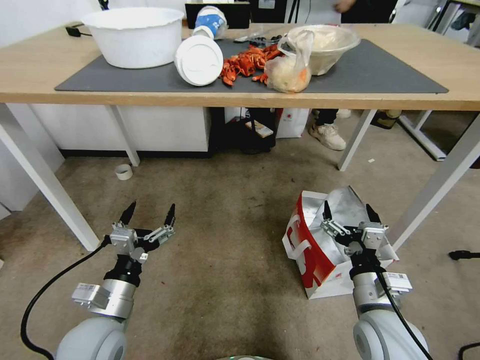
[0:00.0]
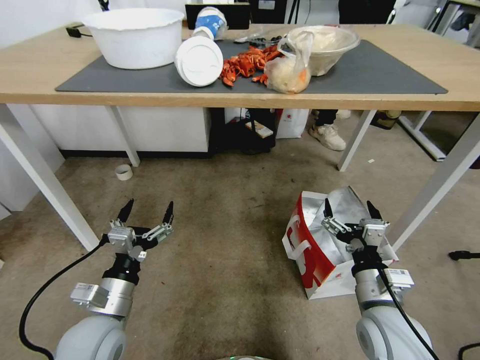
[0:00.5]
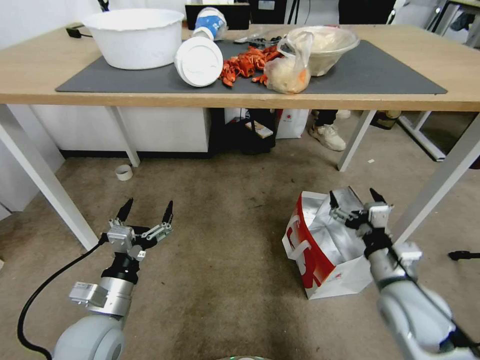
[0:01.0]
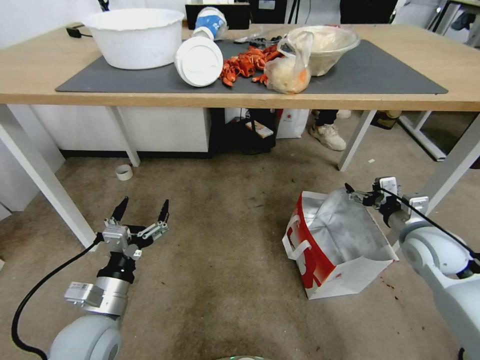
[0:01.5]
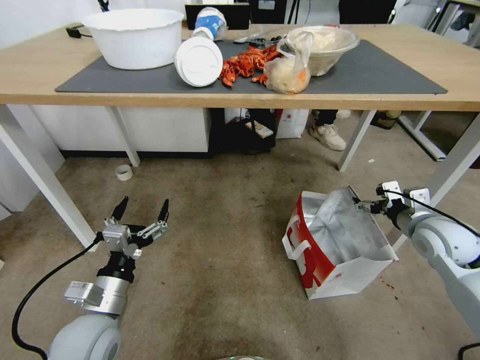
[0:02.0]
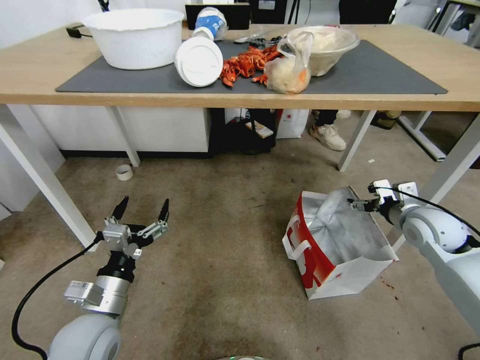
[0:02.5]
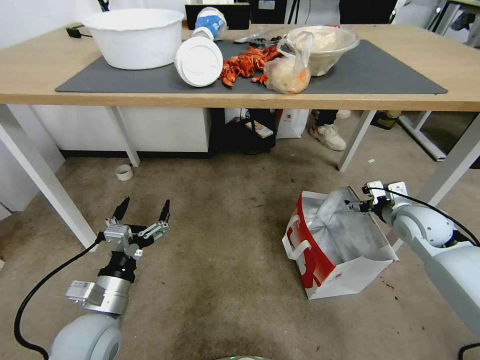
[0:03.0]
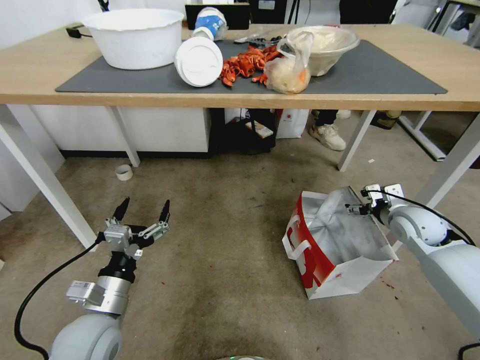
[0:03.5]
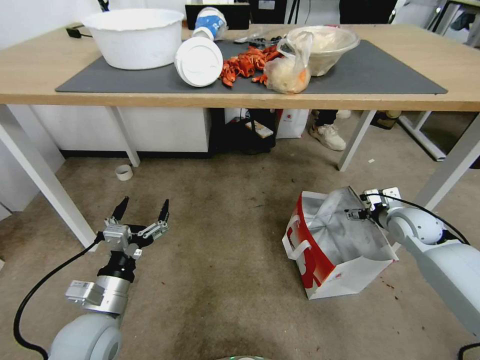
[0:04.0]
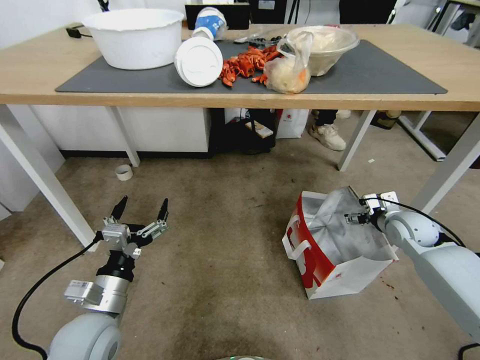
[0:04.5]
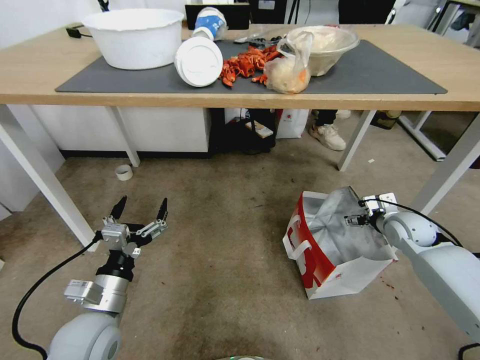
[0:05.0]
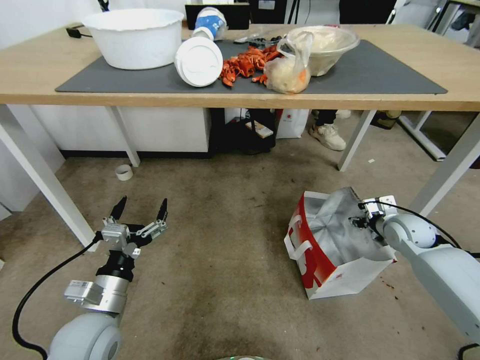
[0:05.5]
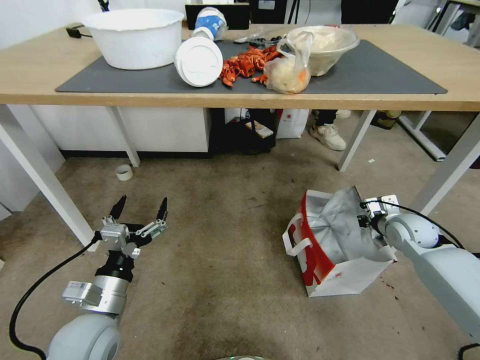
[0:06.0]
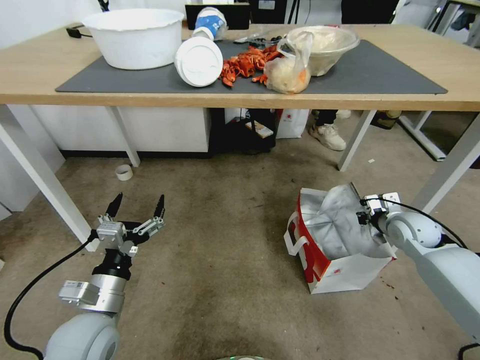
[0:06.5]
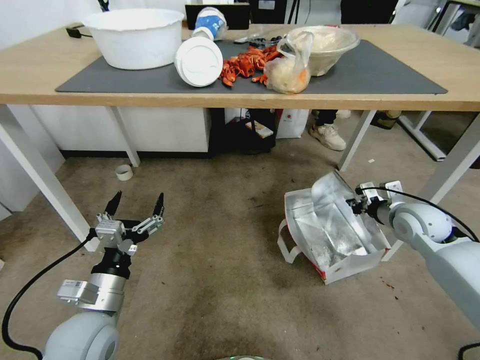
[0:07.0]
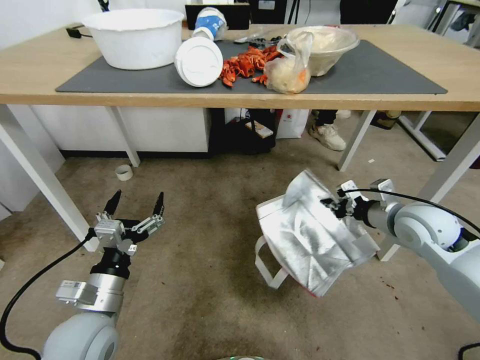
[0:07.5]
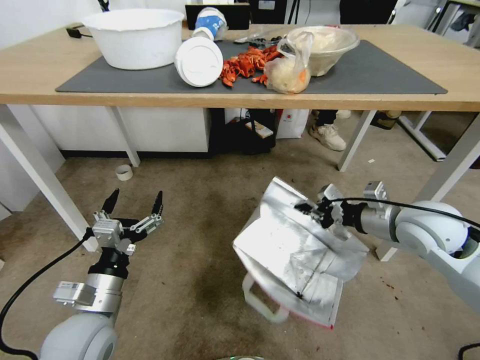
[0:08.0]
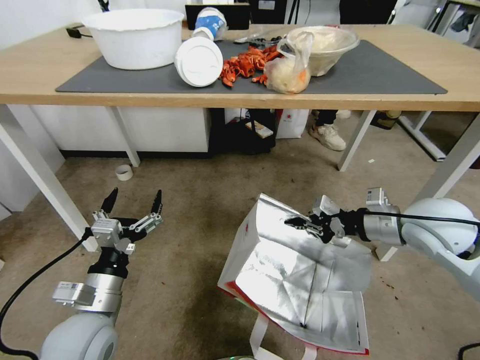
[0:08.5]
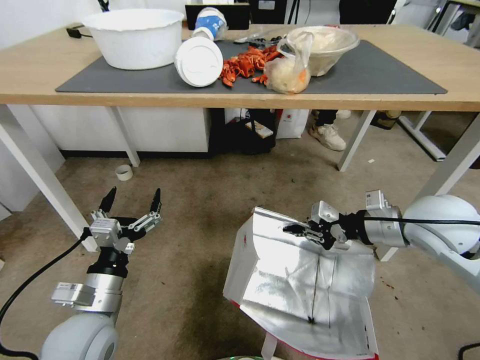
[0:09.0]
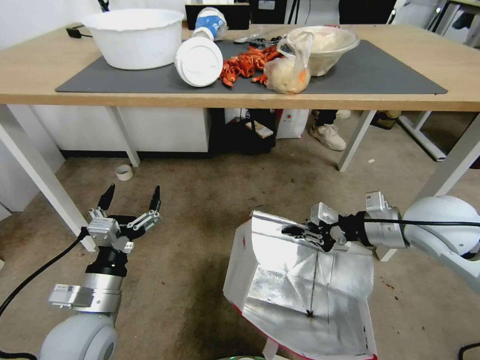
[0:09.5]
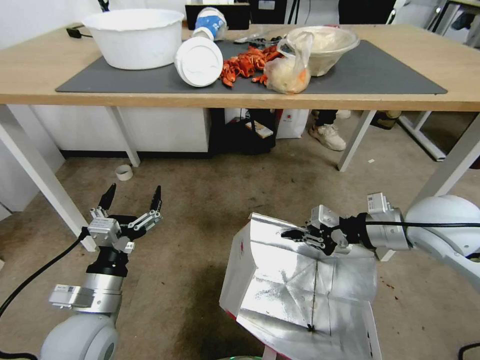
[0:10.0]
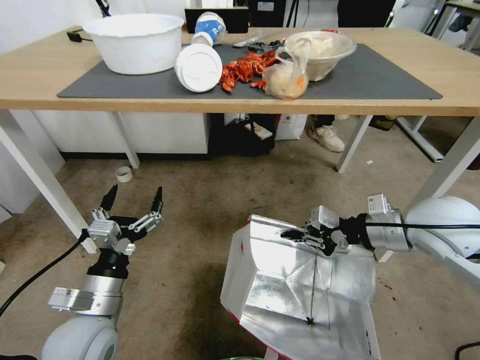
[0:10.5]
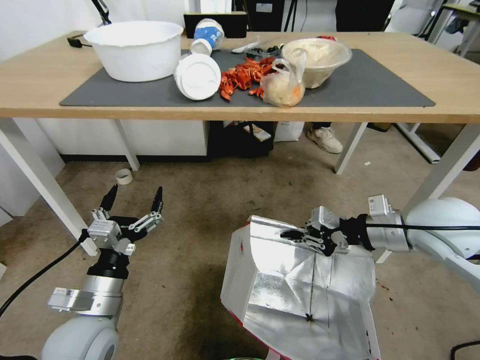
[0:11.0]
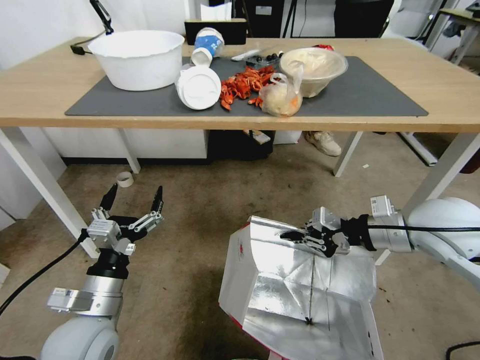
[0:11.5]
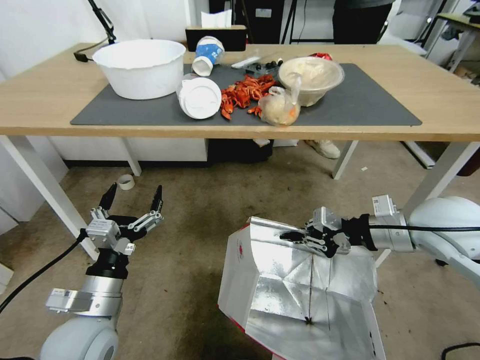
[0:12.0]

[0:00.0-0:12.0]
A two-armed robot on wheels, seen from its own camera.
Task of the whole recording: Pick up the food delivery bag from the floor and place it on the table.
0:00.0 to 0:02.0: The right gripper goes about 20 cm to the right and forward.
0:02.0 to 0:04.0: The right gripper heads forward and downward, covering roughly 10 cm.
0:04.0 to 0:06.0: The right gripper closes its fingers.
0:06.0 to 0:08.0: The right gripper travels upward, to the left and backward by roughly 20 cm.

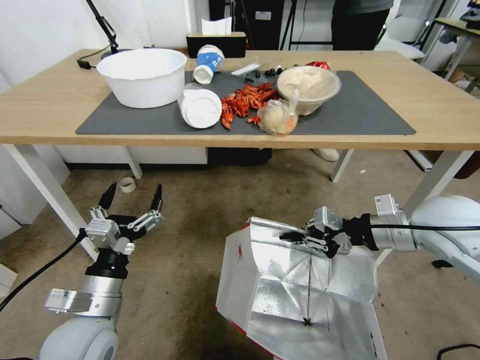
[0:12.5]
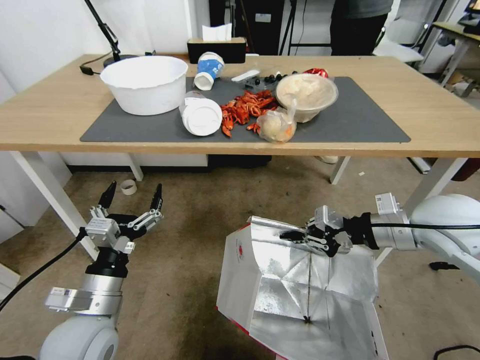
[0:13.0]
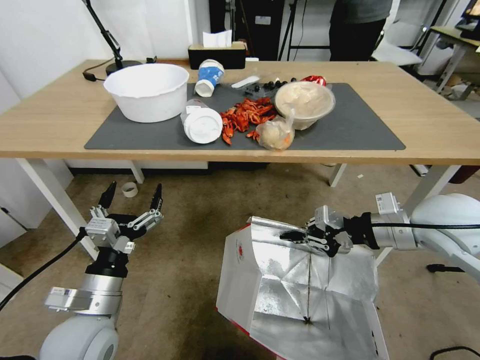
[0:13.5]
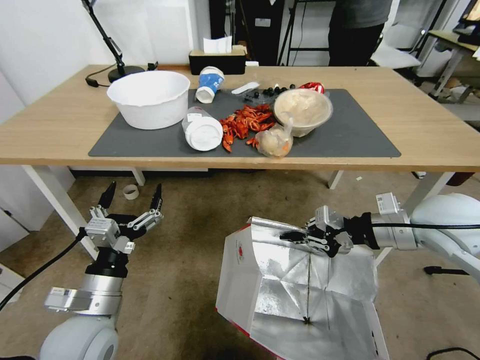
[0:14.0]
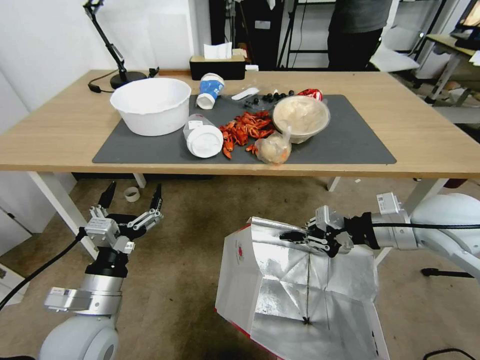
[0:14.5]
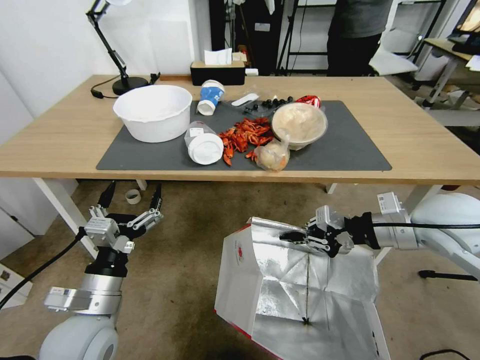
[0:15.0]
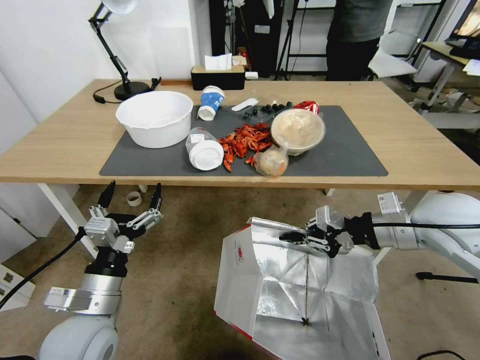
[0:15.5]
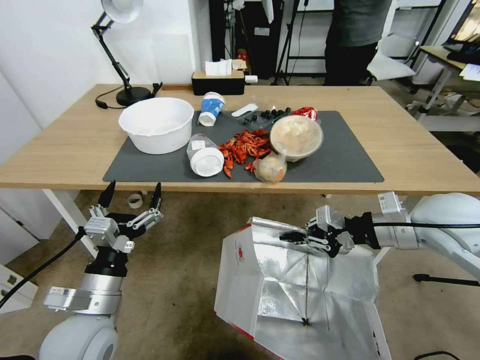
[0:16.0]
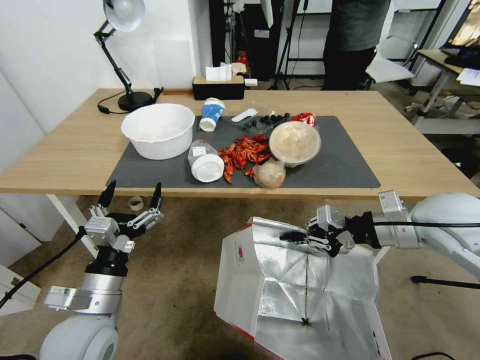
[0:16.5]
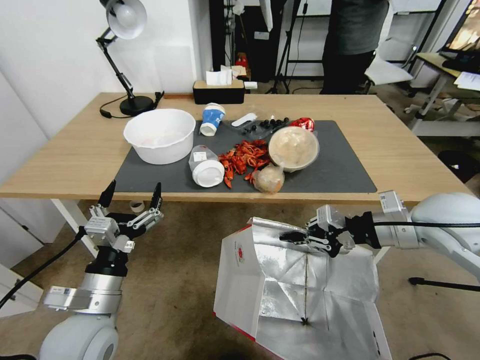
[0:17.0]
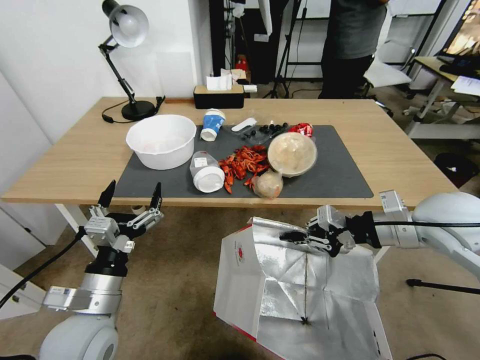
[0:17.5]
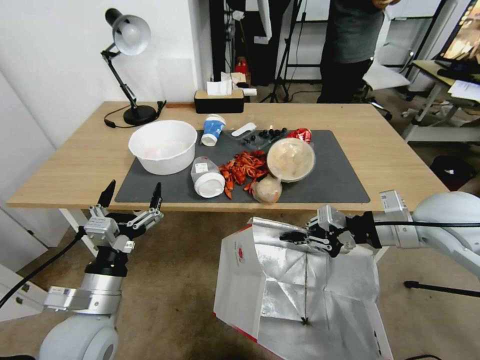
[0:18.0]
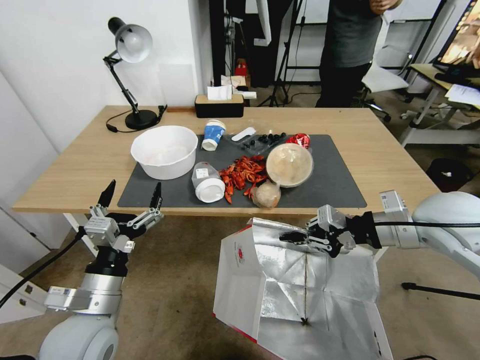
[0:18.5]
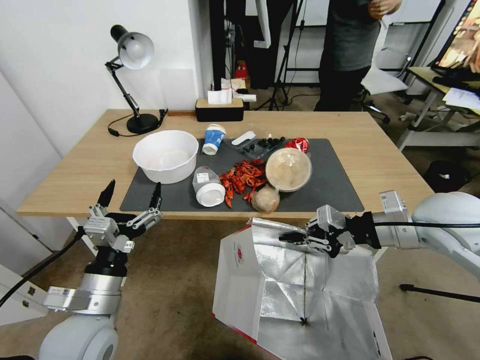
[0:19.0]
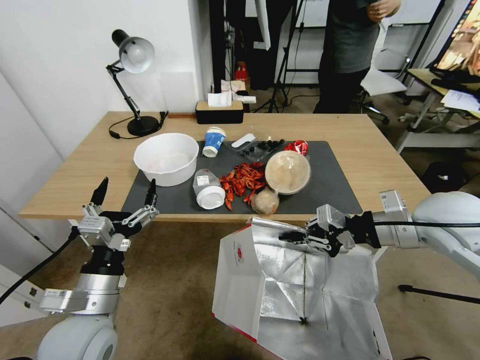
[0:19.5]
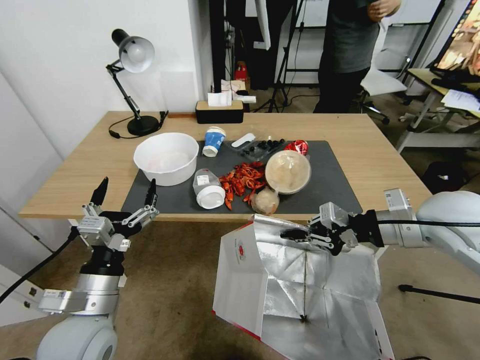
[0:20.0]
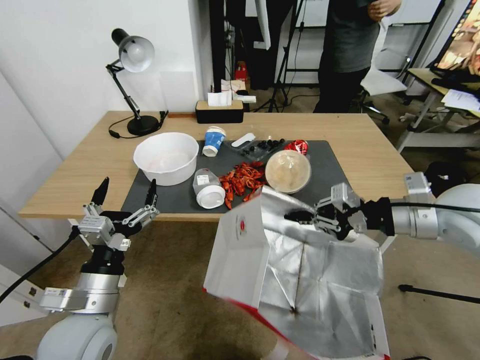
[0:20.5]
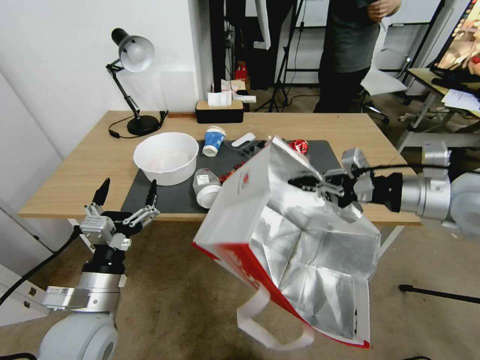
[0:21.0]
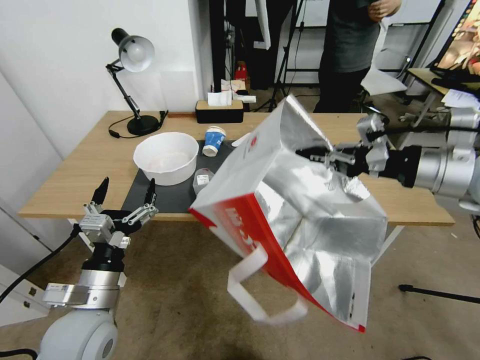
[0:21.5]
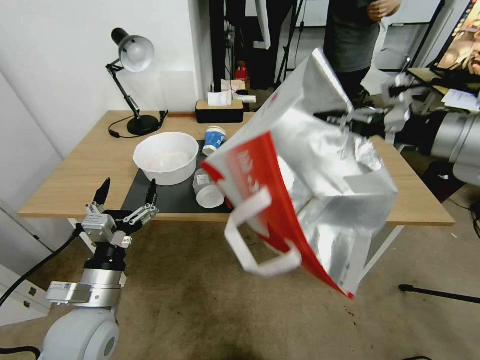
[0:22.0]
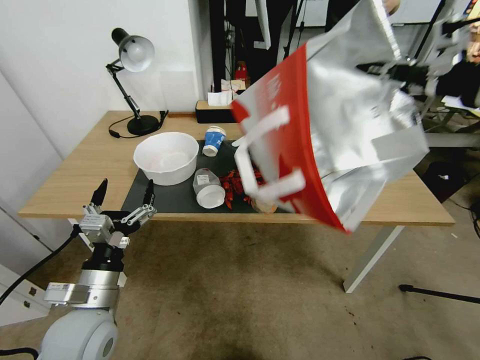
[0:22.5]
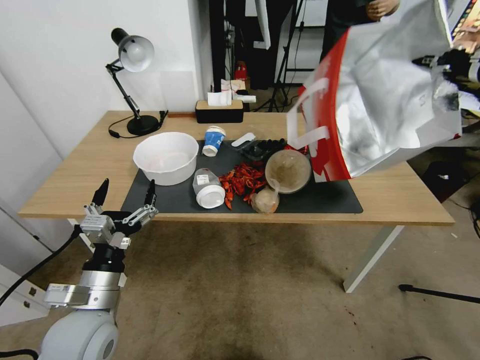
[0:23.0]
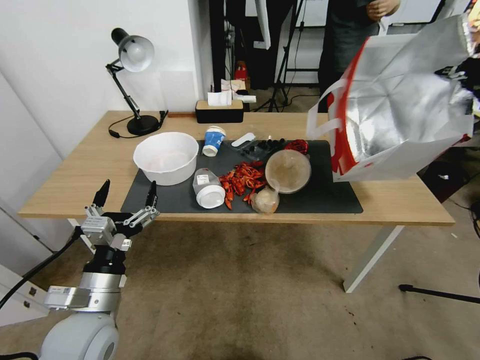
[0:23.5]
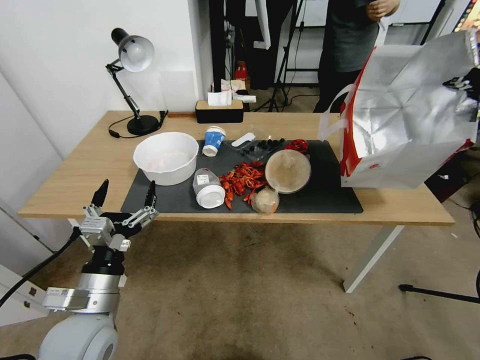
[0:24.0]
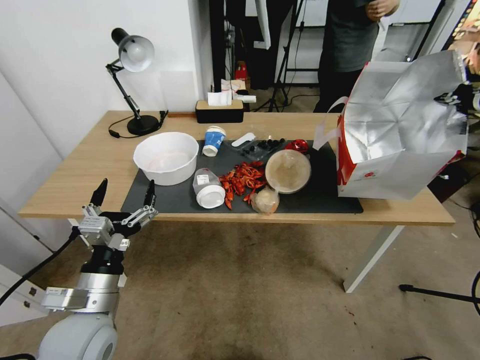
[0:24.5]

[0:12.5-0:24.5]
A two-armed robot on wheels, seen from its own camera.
Task of the whole recording: Pick up the food delivery bag from the floor and place it on the table.
0:20.5 to 0:22.5: The right gripper is displaced upward by some 20 cm.
0:22.5 to 0:24.5: The right gripper shifts some 10 cm to the right and forward.

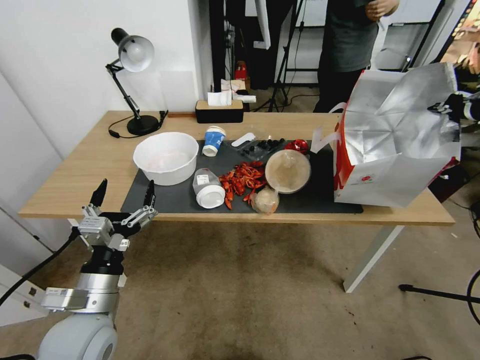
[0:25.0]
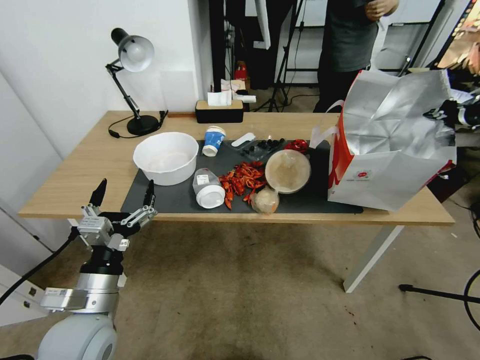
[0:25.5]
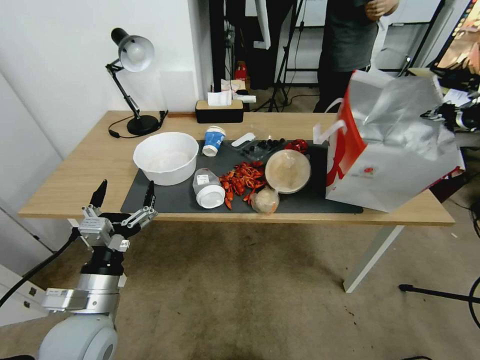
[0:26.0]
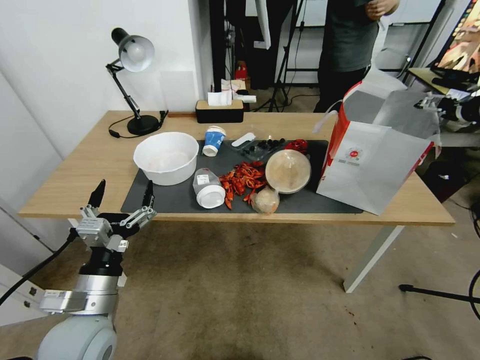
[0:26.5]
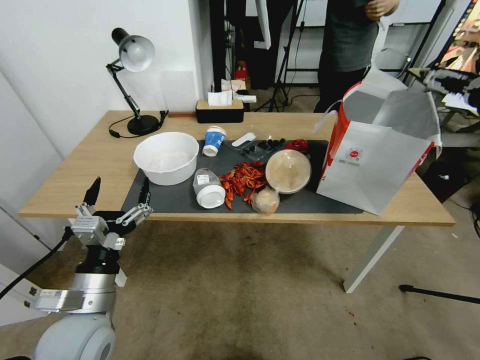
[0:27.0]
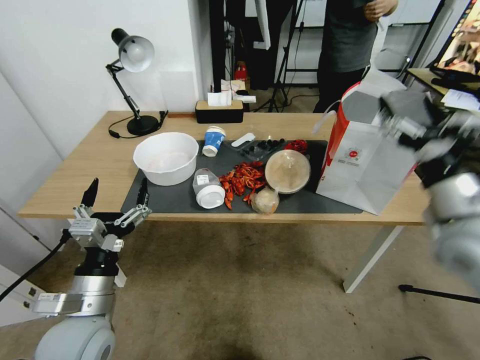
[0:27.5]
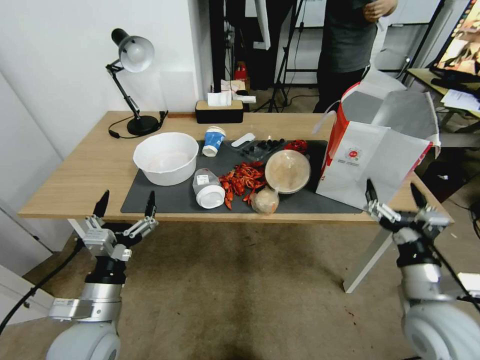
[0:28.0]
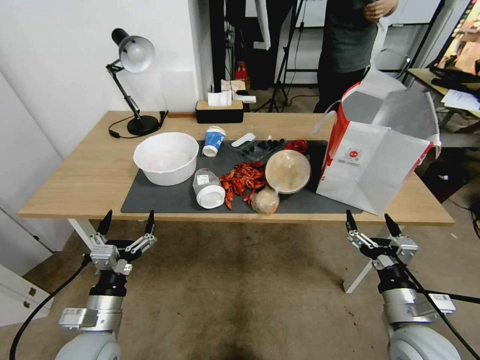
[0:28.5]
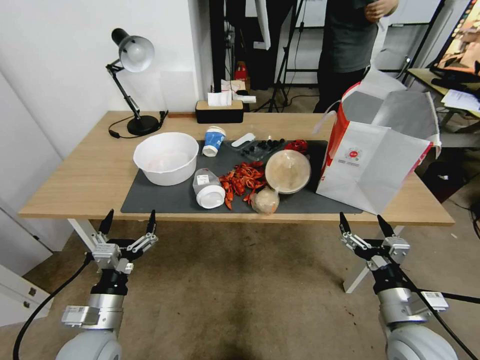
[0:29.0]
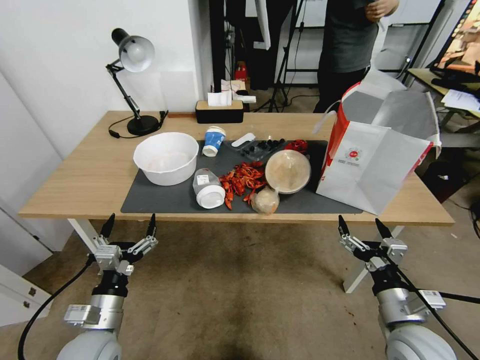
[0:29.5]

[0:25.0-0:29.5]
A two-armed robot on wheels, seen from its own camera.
Task of the whole recording: Pick up the food delivery bag from the floor and place it on the table.
0:25.0 to 0:27.0: The right gripper opens its fingers.
0:27.0 to 0:29.5: The left gripper goes approximately 10 cm downward, while the right gripper heads downward and backward, covering roughly 40 cm.
